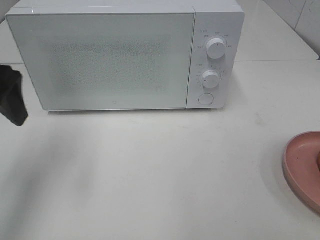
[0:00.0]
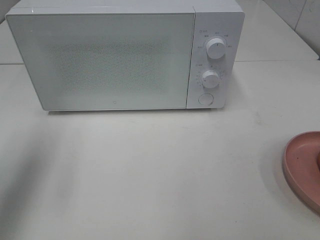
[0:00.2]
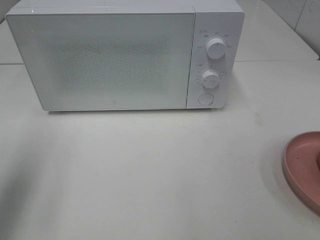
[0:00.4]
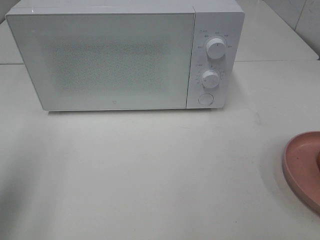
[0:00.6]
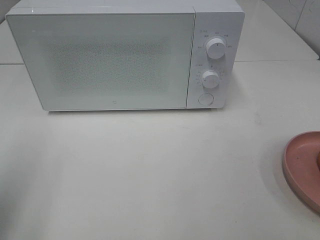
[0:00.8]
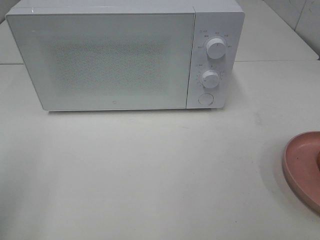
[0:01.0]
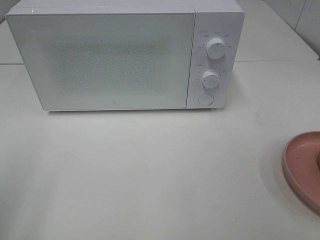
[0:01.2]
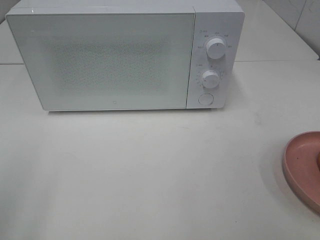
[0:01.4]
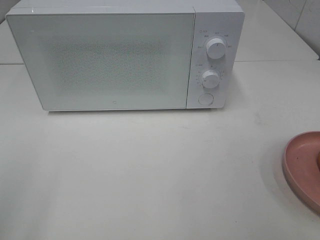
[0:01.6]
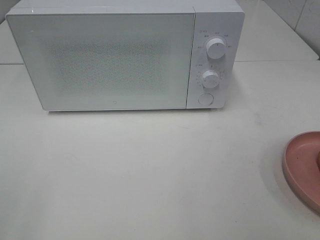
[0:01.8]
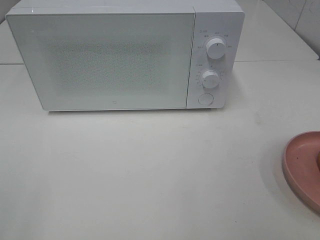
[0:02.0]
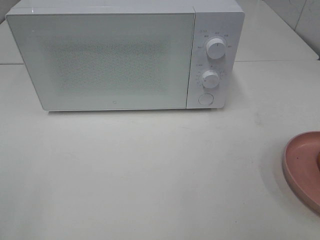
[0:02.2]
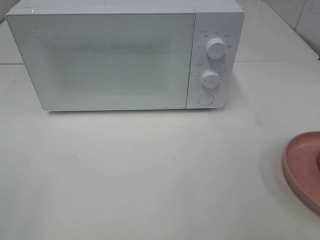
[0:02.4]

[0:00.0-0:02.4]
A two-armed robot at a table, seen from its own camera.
Task of the whole recording: Heat the burger.
0:00.0 to 0:01.2: The left gripper heads backward, covering about 15 cm.

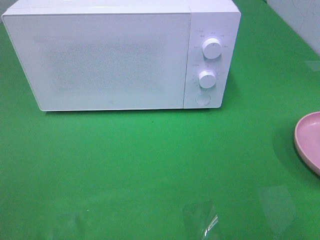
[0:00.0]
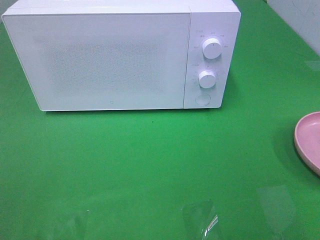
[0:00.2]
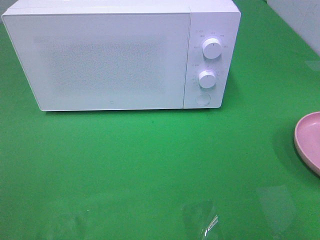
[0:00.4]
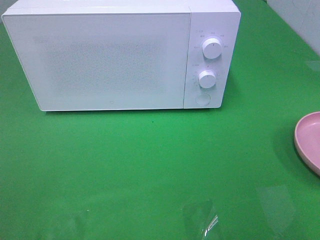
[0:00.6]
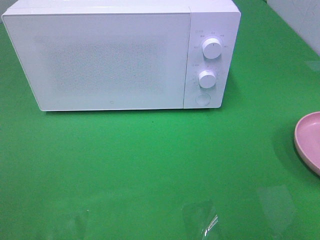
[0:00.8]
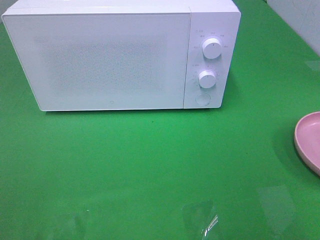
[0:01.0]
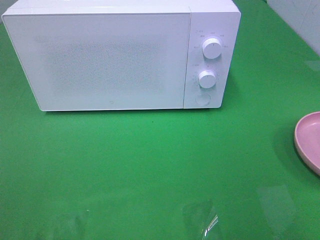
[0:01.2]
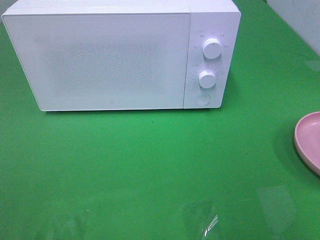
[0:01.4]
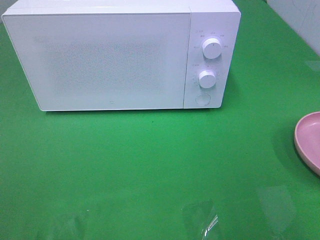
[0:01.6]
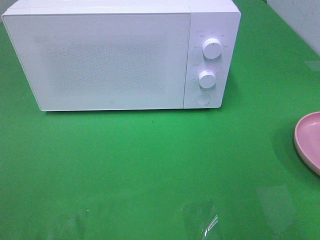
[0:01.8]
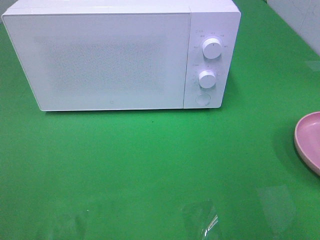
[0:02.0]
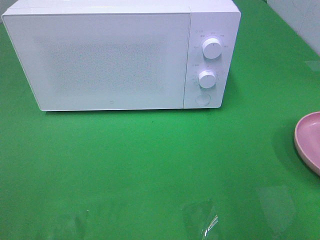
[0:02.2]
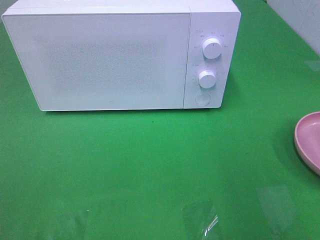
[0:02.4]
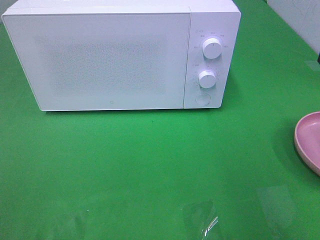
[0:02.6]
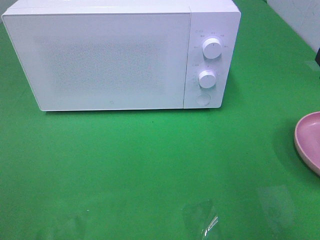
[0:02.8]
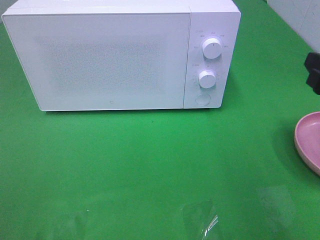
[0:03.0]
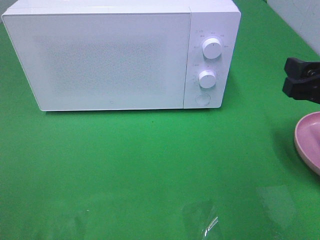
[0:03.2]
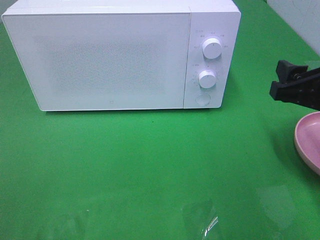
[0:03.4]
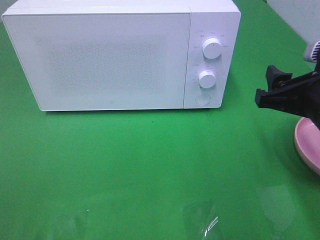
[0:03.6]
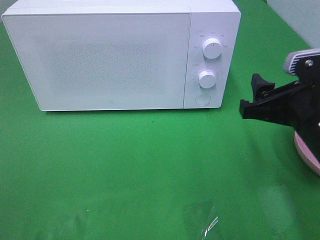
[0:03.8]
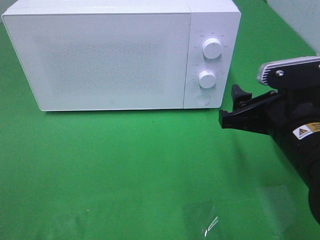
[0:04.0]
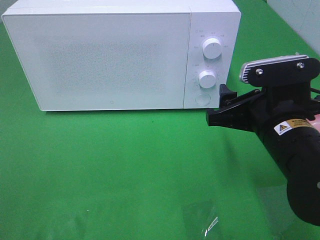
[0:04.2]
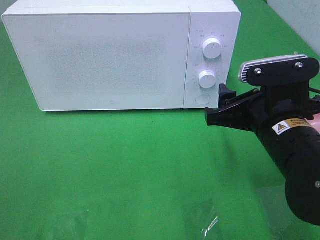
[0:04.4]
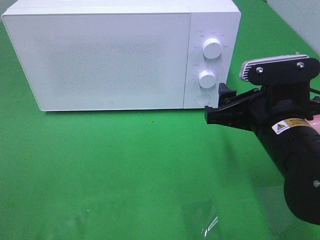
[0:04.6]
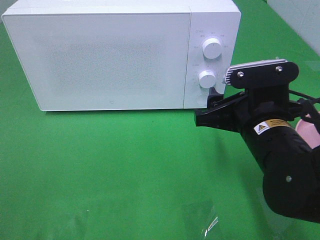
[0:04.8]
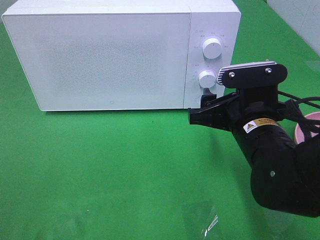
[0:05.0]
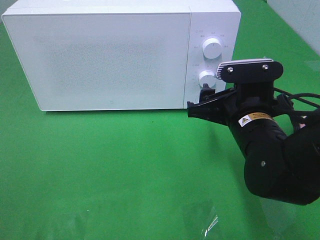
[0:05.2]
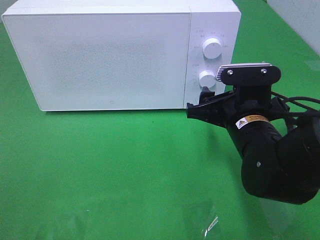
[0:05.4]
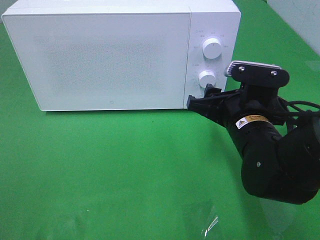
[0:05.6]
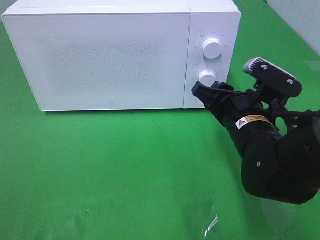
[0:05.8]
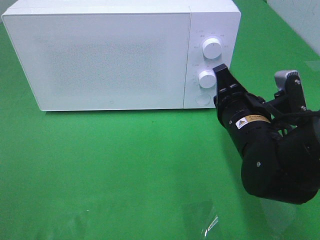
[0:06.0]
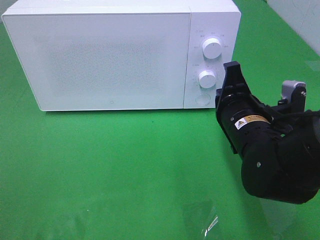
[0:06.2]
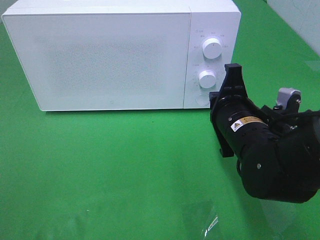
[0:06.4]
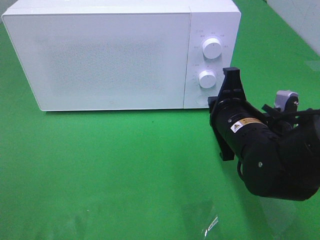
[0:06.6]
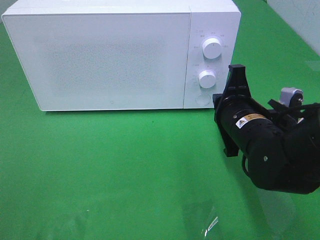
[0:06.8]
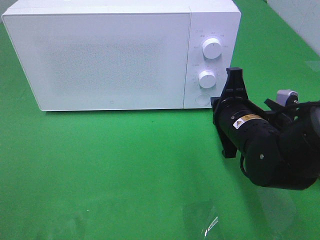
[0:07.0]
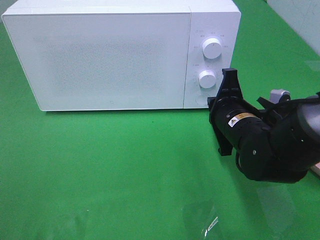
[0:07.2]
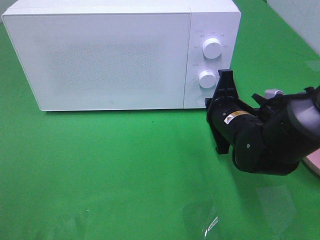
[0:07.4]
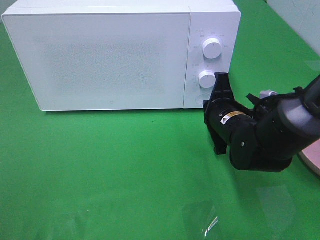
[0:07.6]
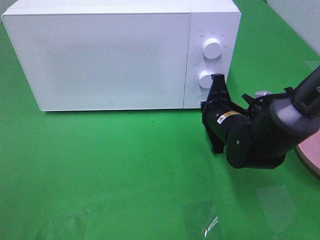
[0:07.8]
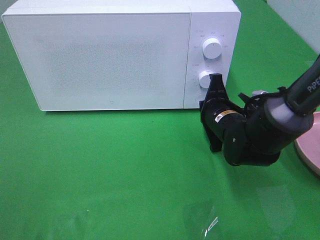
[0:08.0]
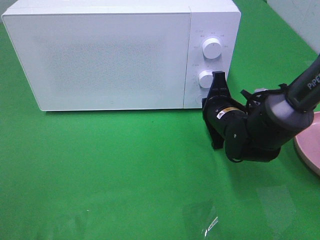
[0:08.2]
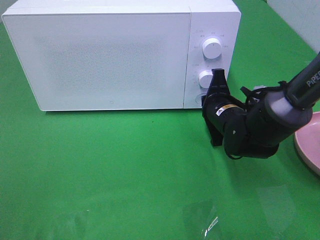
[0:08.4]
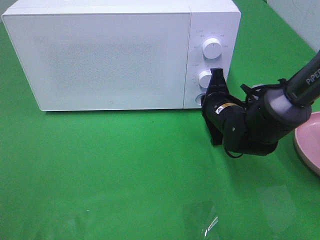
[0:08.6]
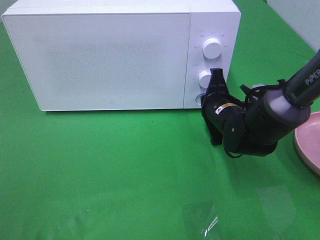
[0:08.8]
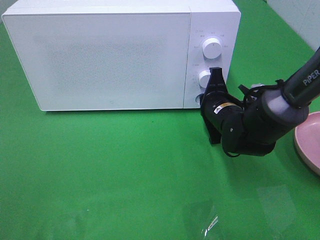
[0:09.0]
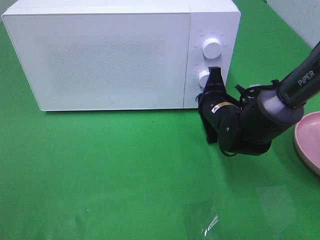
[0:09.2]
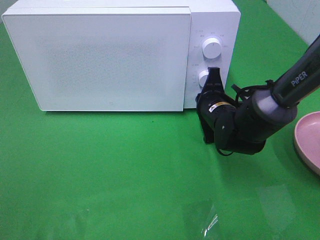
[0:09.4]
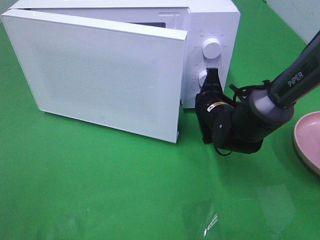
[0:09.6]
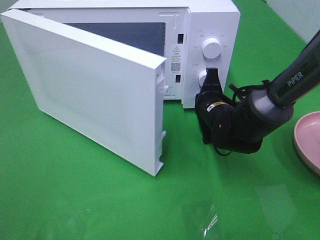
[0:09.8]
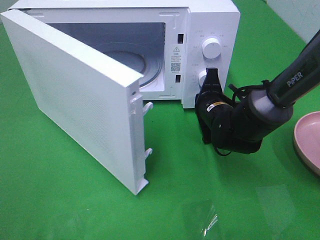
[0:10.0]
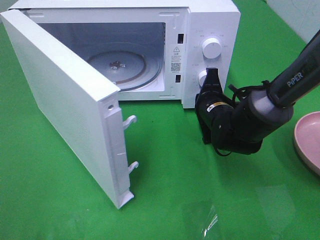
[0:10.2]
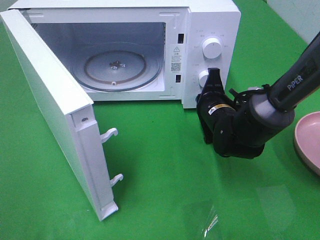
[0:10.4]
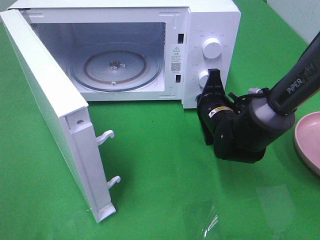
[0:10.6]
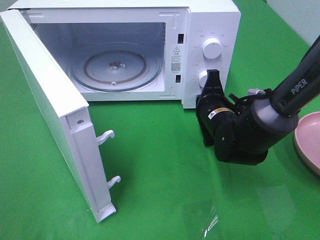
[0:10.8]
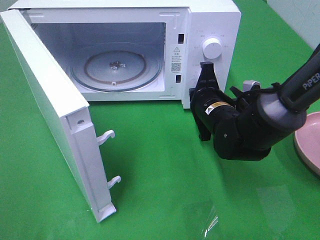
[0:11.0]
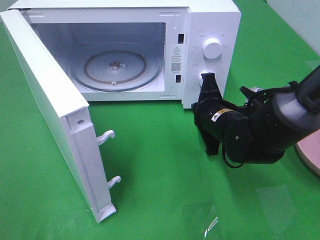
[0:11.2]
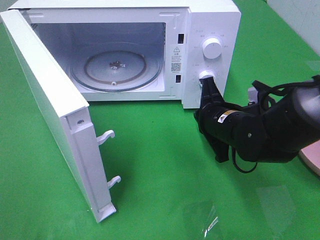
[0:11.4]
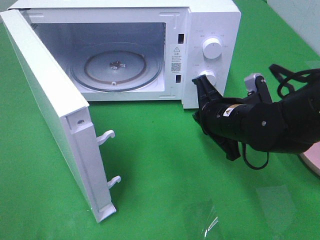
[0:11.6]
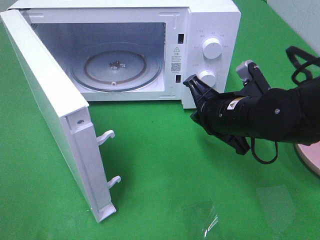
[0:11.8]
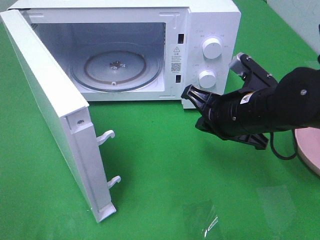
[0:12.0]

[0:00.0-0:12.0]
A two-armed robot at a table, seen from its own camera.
Task of the whole recording: Heat the burger.
Step, 0:00.0 to 0:11.2: Right hand: press the switch.
0:01.6 to 0:03.0: The right gripper is displaced forward and downward by some 15 cm.
0:03.0 to 0:04.4: The right gripper travels to the left and downward by roughly 15 cm.
0:04.4 to 0:06.0: The right gripper ends up about 5 cm from where it was, and closes its fingers.
0:06.0 to 0:07.6: The right gripper goes roughly 5 cm forward.
0:07.6 to 0:09.0: The grippers stay close to where they were, moving slightly.
0:10.4 to 0:12.0: The right gripper goes roughly 10 cm backward and upward.

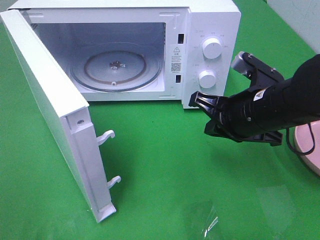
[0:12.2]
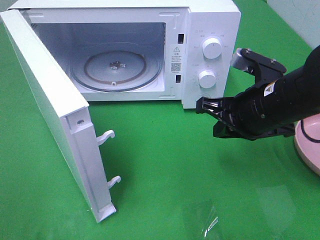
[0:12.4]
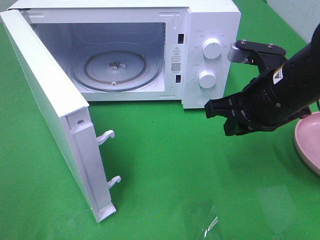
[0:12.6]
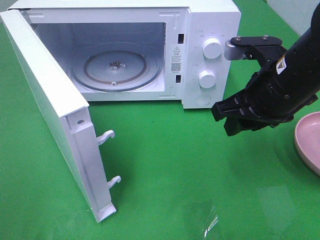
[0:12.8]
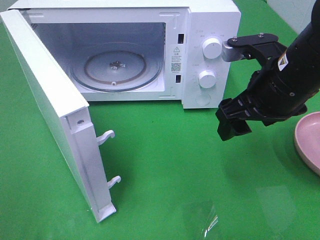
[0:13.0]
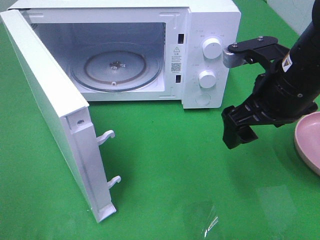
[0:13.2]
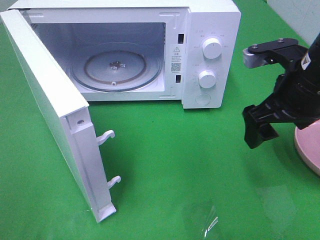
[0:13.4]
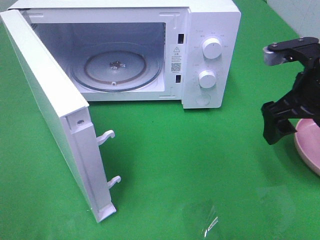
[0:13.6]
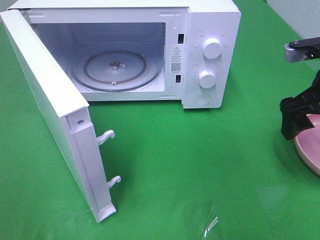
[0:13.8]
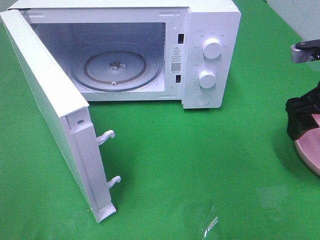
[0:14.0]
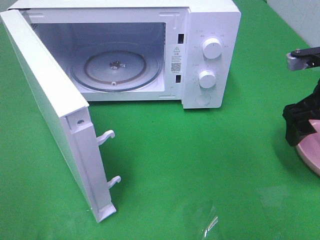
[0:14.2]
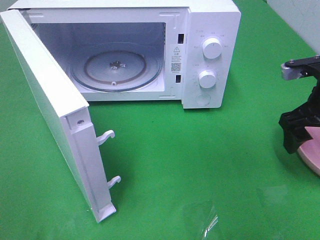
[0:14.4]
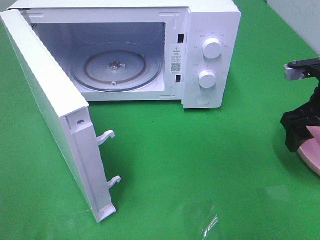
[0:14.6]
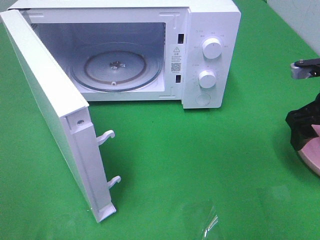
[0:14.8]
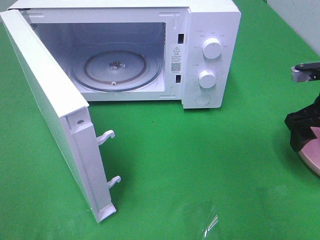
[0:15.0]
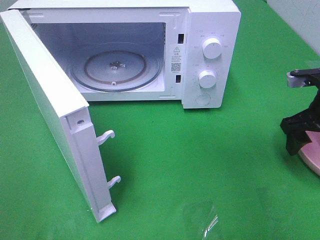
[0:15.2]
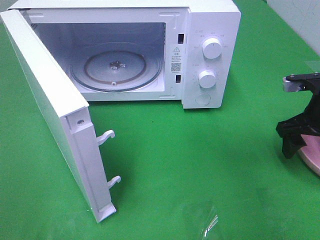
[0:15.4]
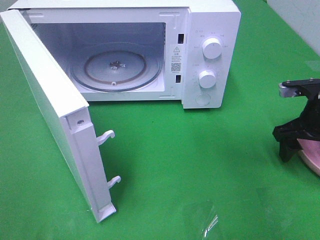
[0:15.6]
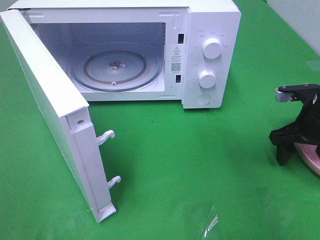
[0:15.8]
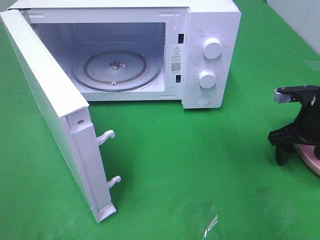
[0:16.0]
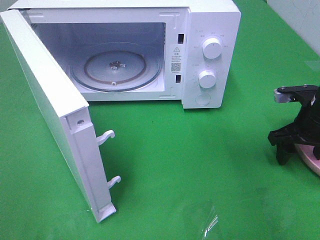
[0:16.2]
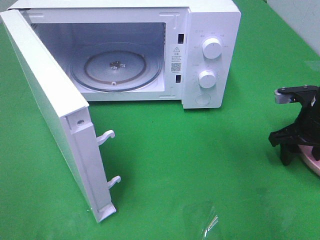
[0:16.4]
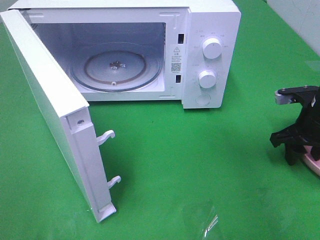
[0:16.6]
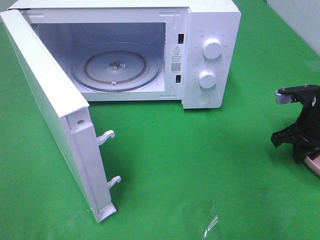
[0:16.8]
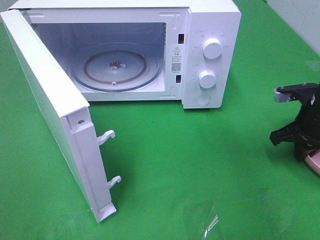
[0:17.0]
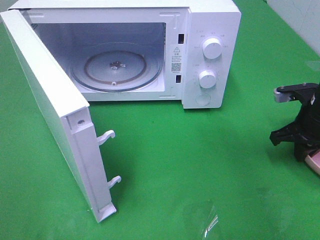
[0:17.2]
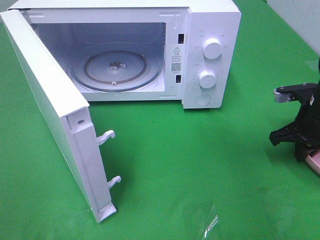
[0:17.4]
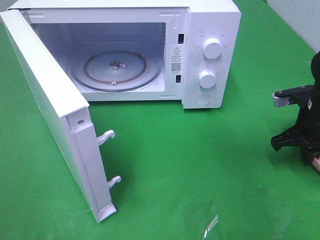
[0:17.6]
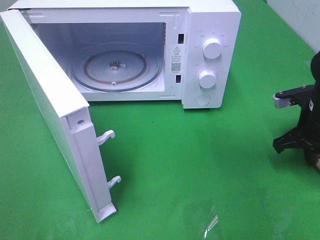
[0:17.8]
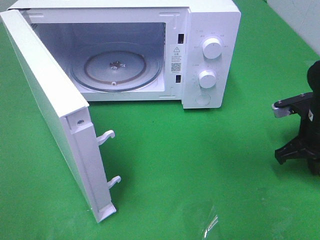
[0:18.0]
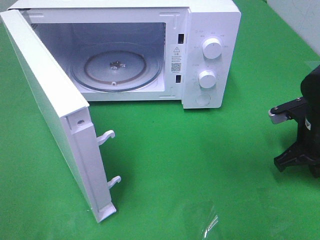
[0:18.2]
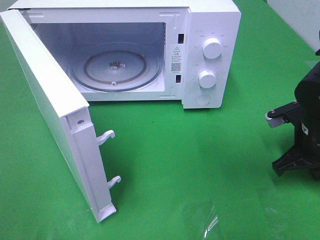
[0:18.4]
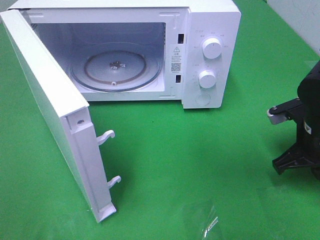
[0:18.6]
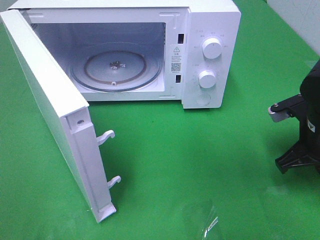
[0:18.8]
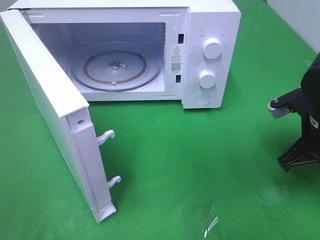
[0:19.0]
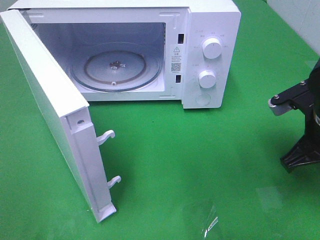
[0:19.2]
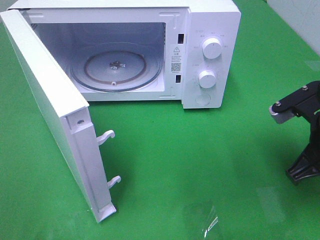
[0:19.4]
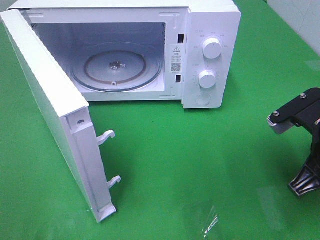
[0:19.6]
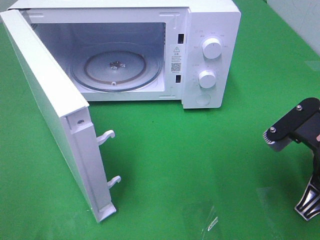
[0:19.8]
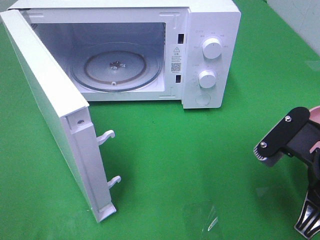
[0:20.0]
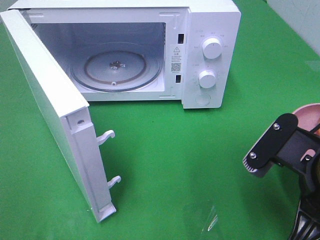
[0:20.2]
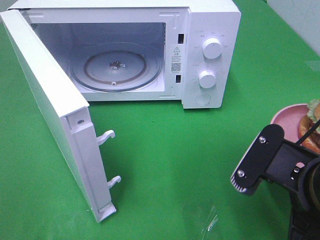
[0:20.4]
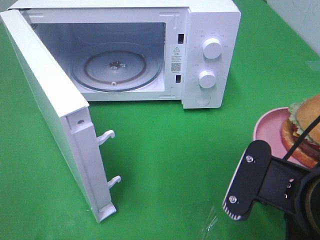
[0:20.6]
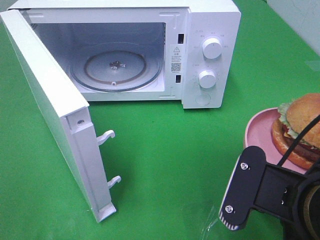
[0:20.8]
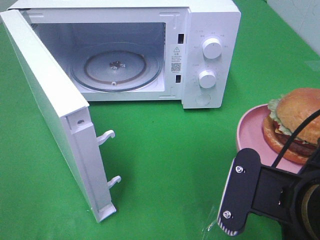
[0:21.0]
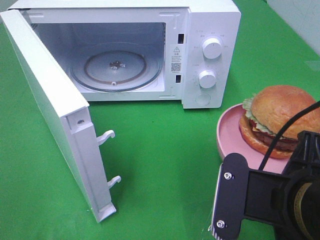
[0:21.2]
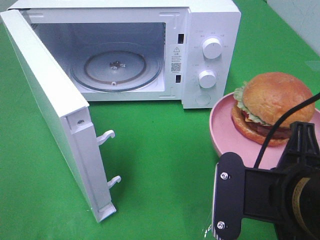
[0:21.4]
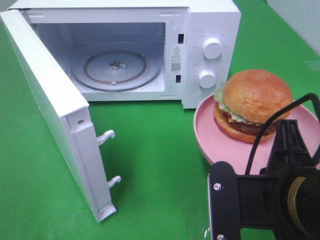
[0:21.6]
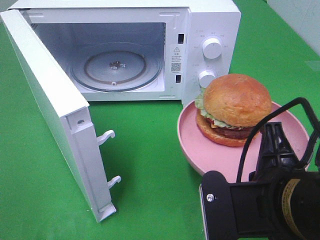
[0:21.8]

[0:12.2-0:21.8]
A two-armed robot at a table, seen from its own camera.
Task of the whole recording: Heat the burger.
Step, 0:12.2 to 0:17.8: Right hand: grab the plate with the hamburger.
0:12.2 to 0:13.8: The right gripper is displaced to the right and upward by roughly 10 cm, and opens.
0:13.8 to 0:15.4: The right gripper heads downward, covering some 10 cm.
0:15.4 to 0:17.0: The right gripper closes its fingers.
0:17.0 to 0:18.6: The right gripper shifts approximately 5 cm backward.
0:18.6 to 0:20.2: The right gripper shifts some 15 cm backward, to the left and upward.
0:20.2 to 0:21.8: The right gripper is displaced to the left by some 5 cm.
